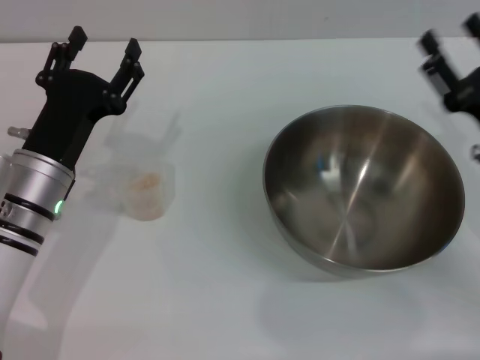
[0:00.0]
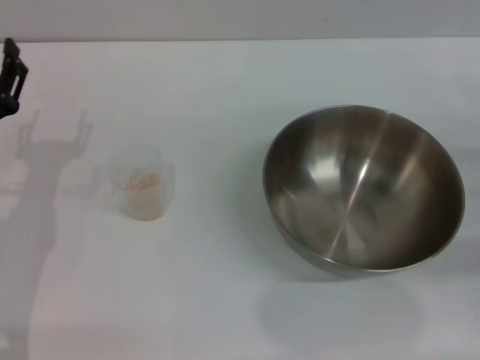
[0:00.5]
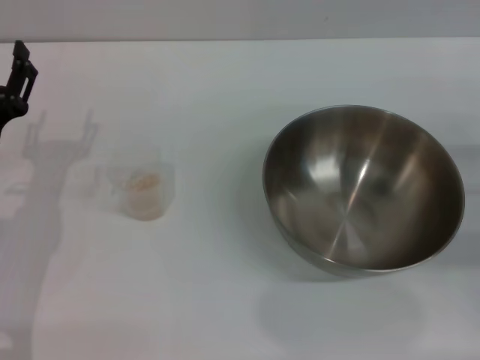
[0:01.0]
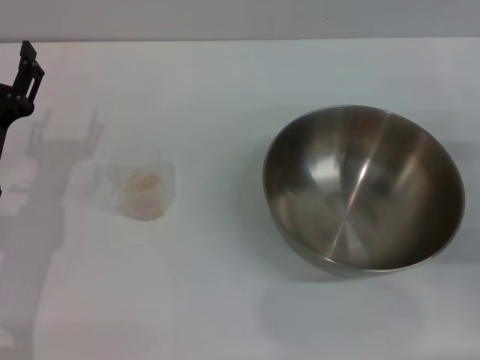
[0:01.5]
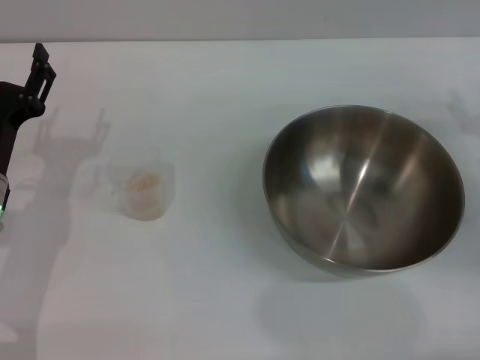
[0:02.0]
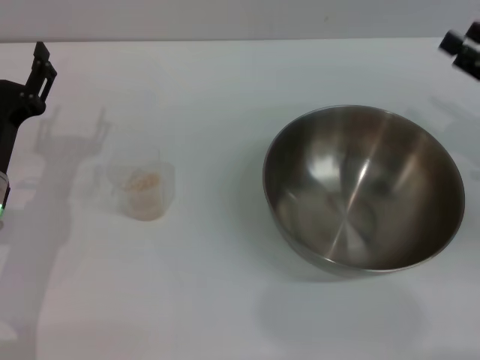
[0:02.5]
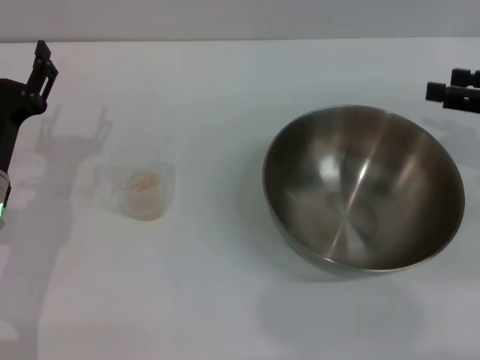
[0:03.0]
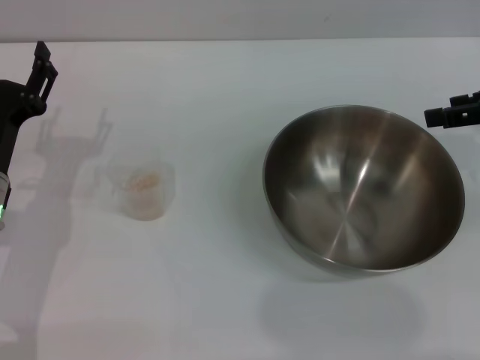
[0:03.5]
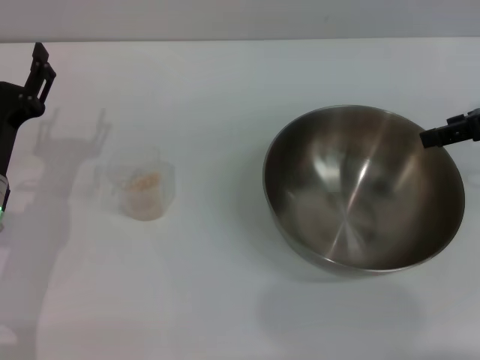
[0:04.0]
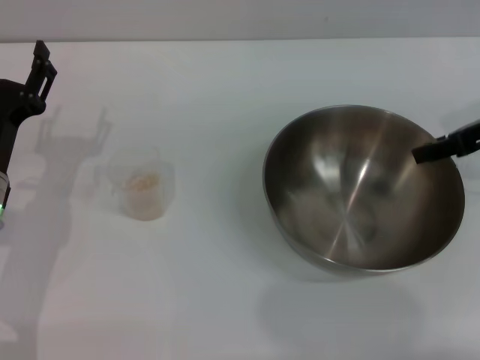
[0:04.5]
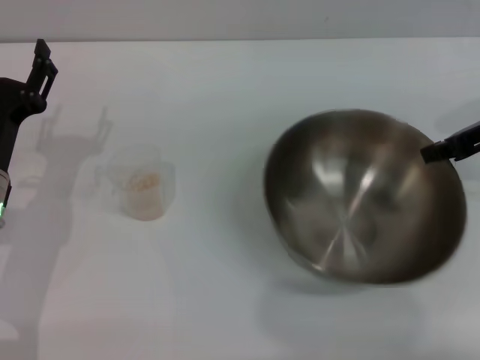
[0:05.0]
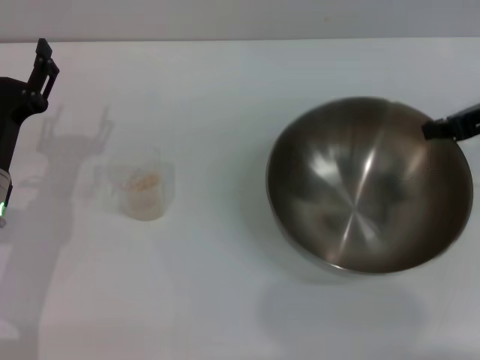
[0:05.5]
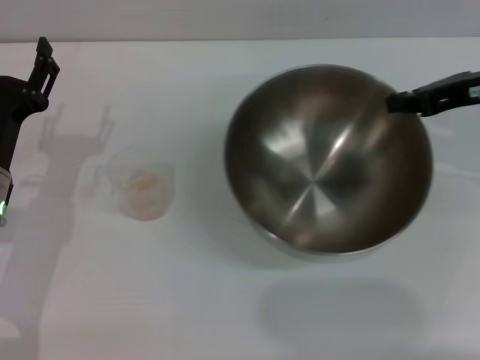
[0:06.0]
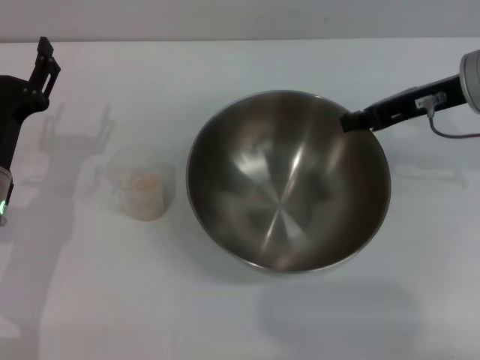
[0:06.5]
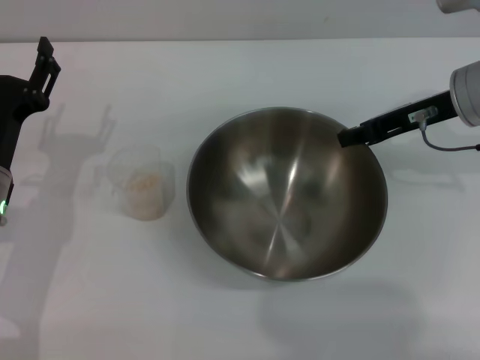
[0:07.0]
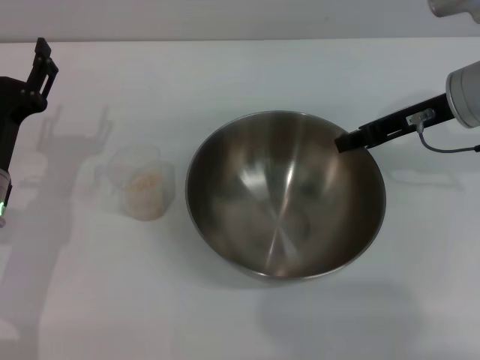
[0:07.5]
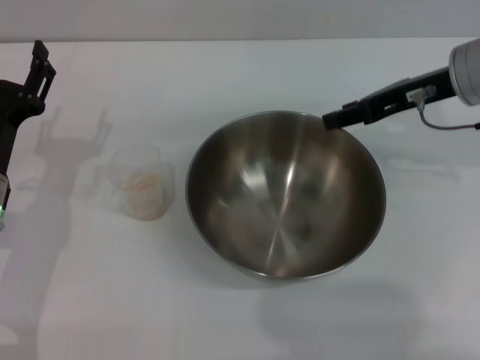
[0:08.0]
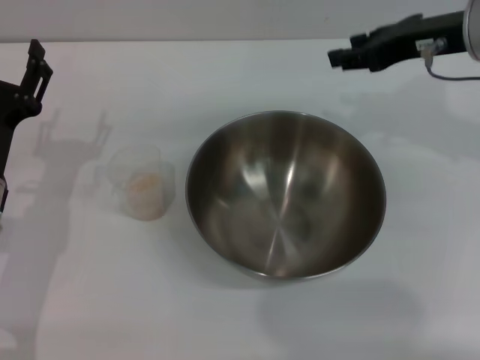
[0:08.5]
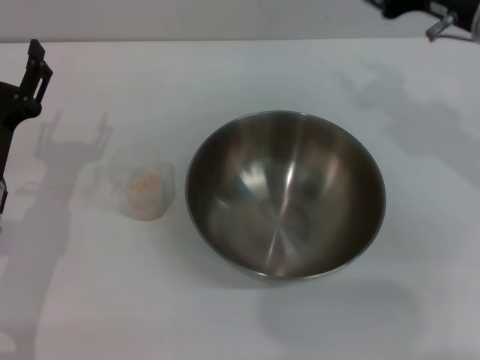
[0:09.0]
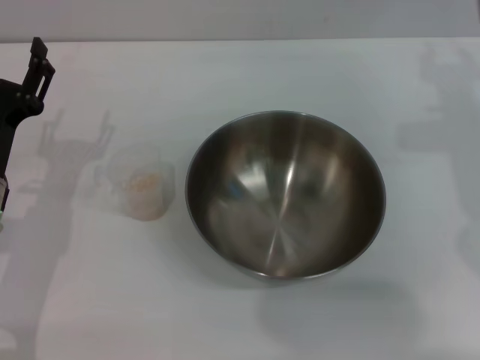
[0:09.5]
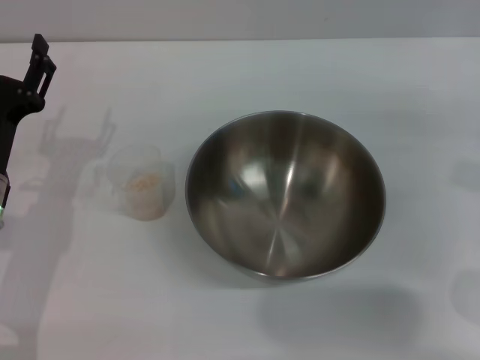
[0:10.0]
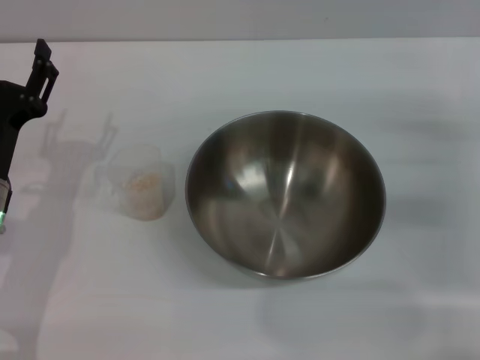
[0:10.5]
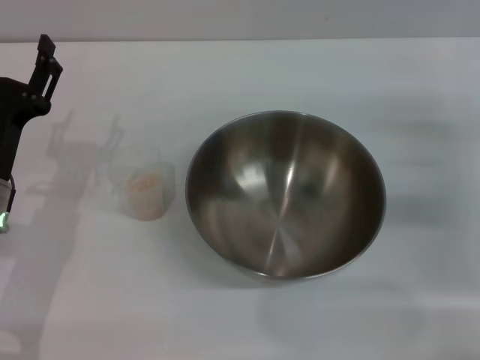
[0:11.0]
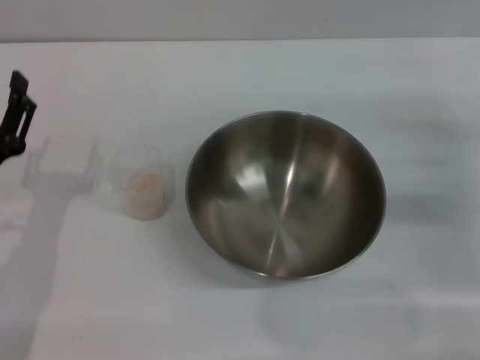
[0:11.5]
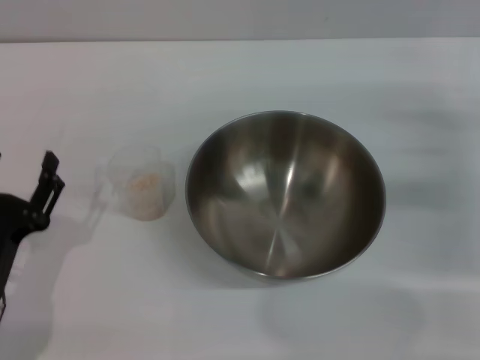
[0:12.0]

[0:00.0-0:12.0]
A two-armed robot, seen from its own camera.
Task of the whole recording: Place the bowl in the middle of the table with one hand and pour the rice from the grain cup into it with the other hand.
Step, 0:00.0 to 0:06.0: Pick up the bowl with the right gripper.
Step, 0:06.5 to 0:08.0: Place the bowl in the center of view with the right gripper.
0:00.0 to 0:02.0: The left gripper shifts by roughly 5 cm. The right gripper moves to the right, some 5 cm.
0:02.0 to 0:04.0: The right gripper is displaced upward by roughly 15 cm.
0:04.0 to 0:06.0: The right gripper closes its fingers.
0:06.0 to 0:08.0: The right gripper ends up some 5 cm from where it was, and opens up.
0:08.0 to 0:10.0: The right gripper goes roughly 10 cm backward and downward.
0:10.0 to 0:12.0: The right gripper shifts roughly 5 cm downward; the left gripper travels backward by some 10 cm.

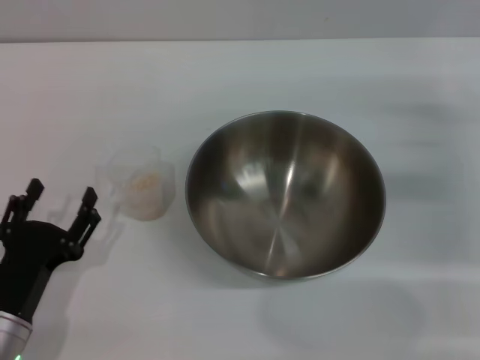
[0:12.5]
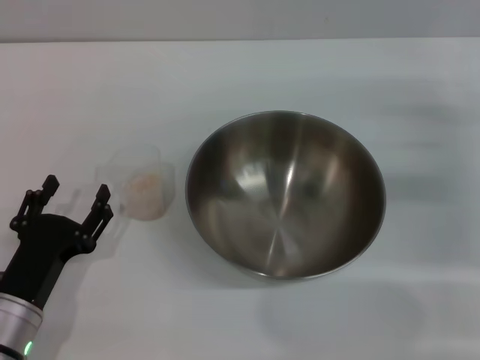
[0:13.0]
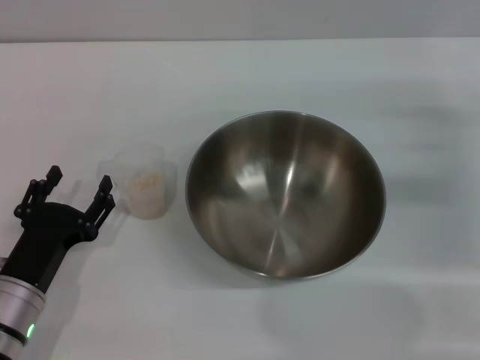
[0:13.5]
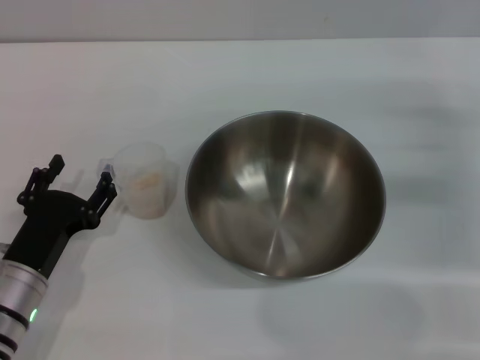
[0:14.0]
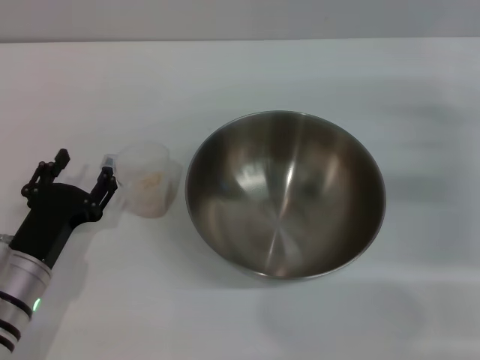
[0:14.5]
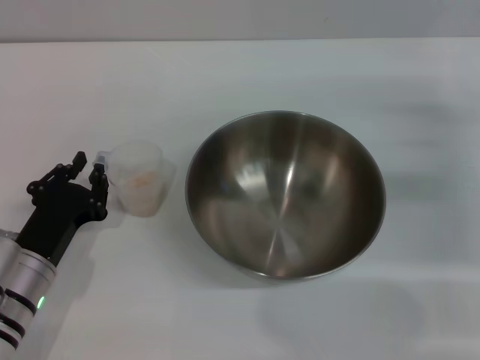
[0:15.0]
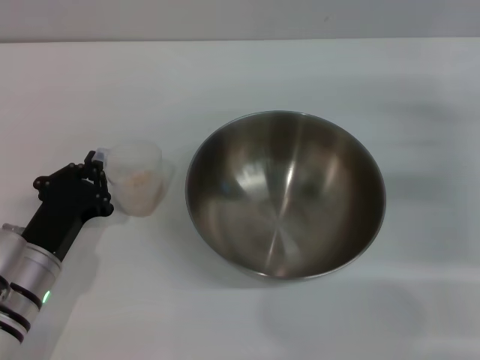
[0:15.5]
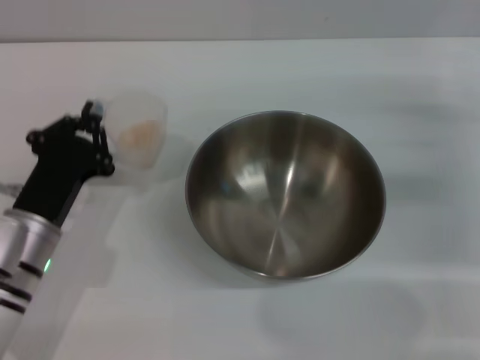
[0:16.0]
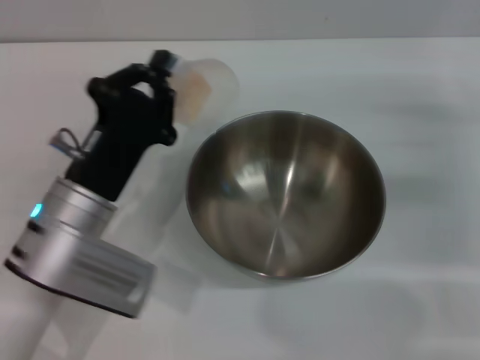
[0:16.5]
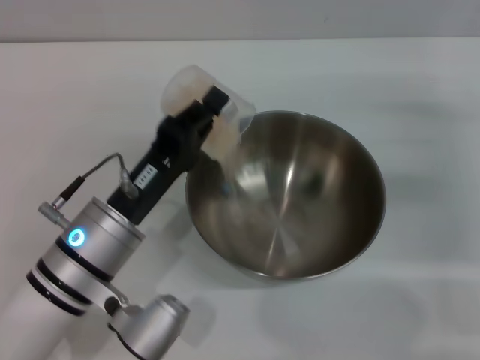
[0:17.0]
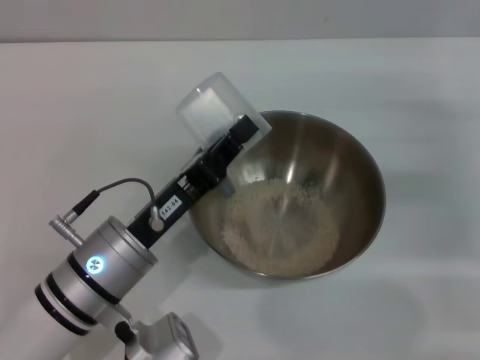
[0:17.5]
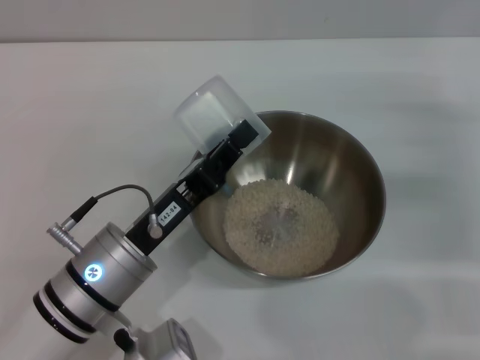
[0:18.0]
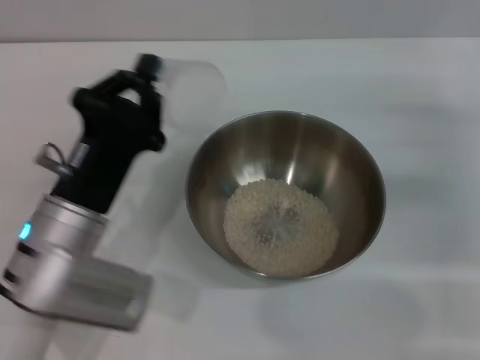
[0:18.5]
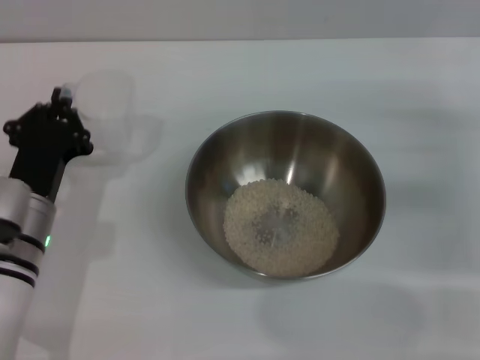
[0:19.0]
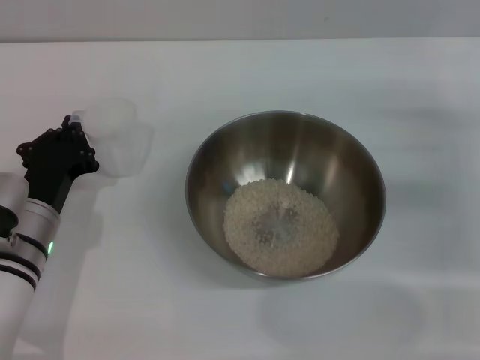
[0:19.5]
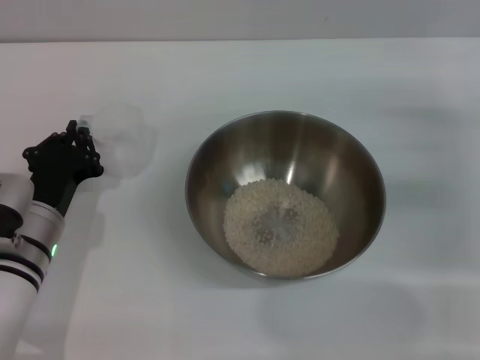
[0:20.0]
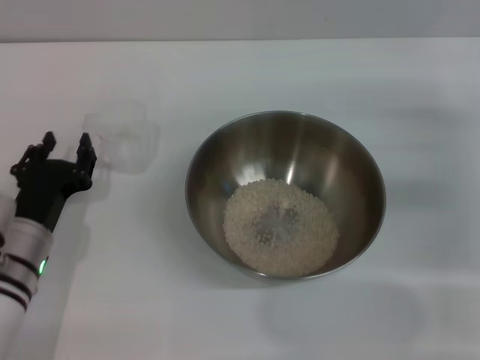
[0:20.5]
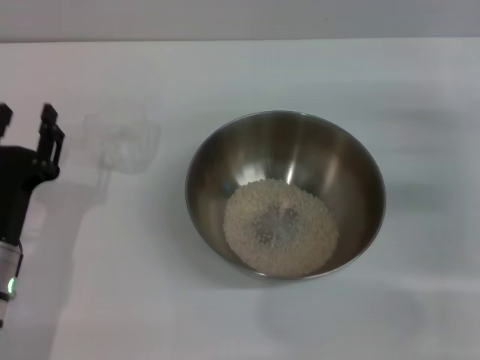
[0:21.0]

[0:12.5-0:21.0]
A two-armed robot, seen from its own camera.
Task of the whole recording: Place the bowl in the middle of the table with one hand and pour the rice from the grain cup into it with the other hand.
Step, 0:12.5 to 0:16.0: Pick up the cup with rice in it with the left gripper.
Step, 0:16.5 to 0:17.5: Pour the rice from the cup into the bowl with the left gripper.
Step, 0:18.0 to 0:20.5: Place the cup on the table with the left gripper.
0:12.5 to 0:14.5: The left gripper goes approximately 5 cm forward.
0:14.5 to 0:16.5: The left gripper is displaced to the right and upward by roughly 10 cm, and closes its fingers.
0:16.5 to 0:19.0: The left gripper travels to the left by about 5 cm.
0:19.0 to 0:21.0: The left gripper heads backward, covering some 5 cm, and opens its fingers.
